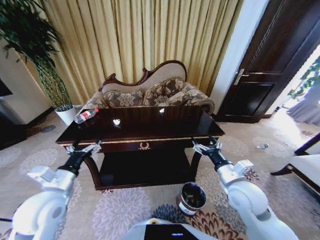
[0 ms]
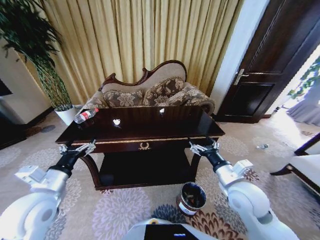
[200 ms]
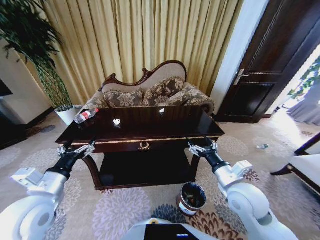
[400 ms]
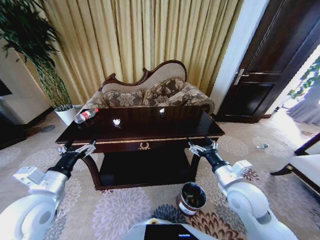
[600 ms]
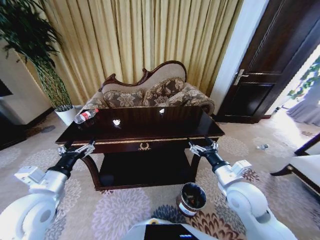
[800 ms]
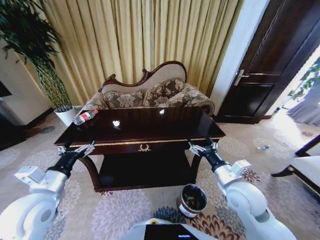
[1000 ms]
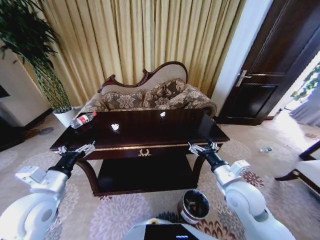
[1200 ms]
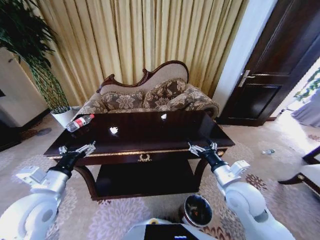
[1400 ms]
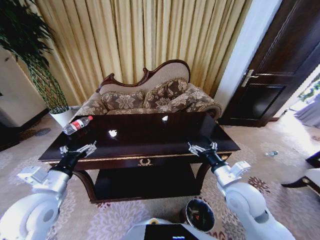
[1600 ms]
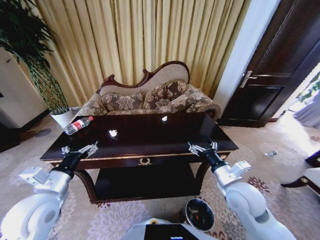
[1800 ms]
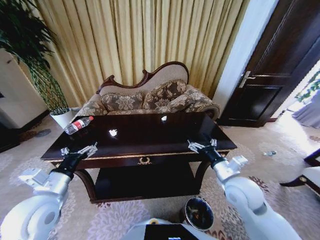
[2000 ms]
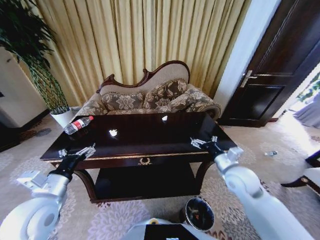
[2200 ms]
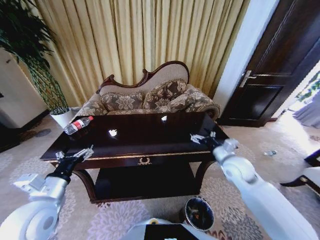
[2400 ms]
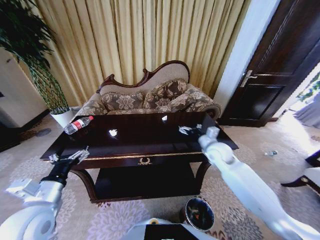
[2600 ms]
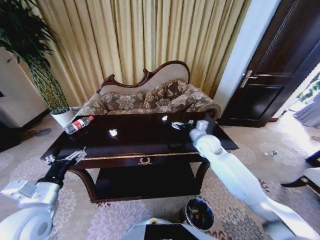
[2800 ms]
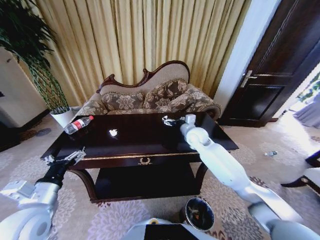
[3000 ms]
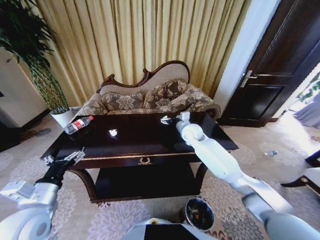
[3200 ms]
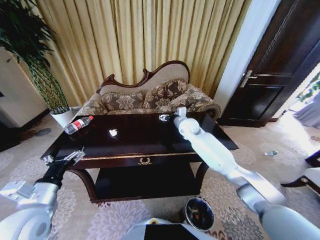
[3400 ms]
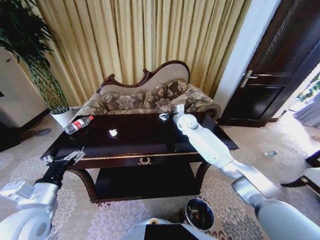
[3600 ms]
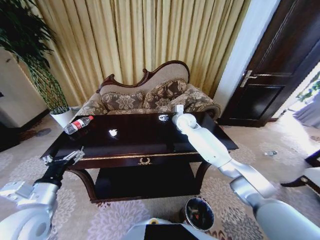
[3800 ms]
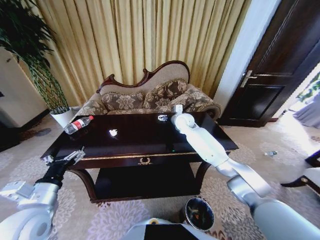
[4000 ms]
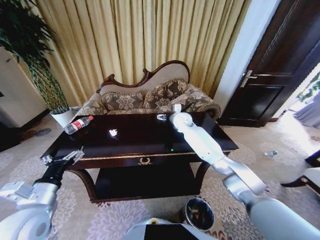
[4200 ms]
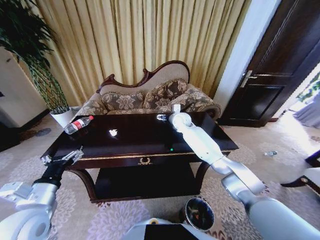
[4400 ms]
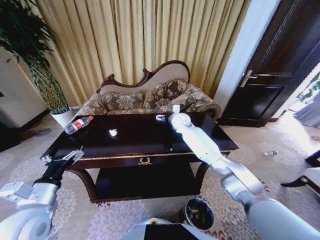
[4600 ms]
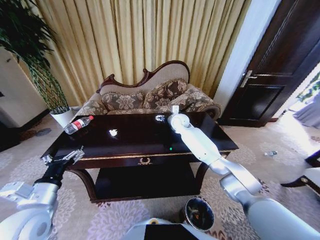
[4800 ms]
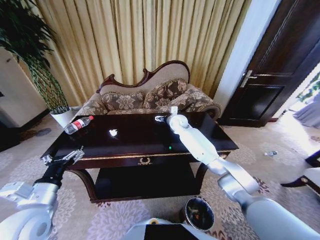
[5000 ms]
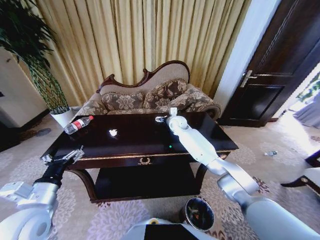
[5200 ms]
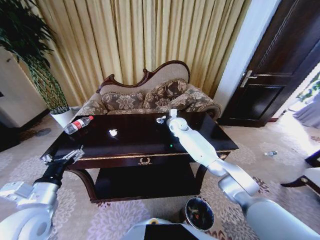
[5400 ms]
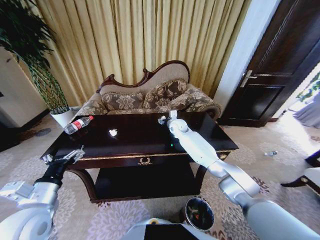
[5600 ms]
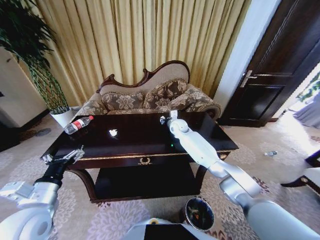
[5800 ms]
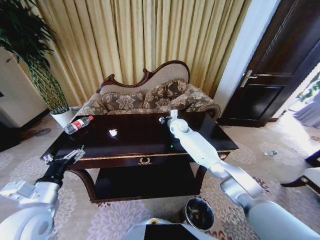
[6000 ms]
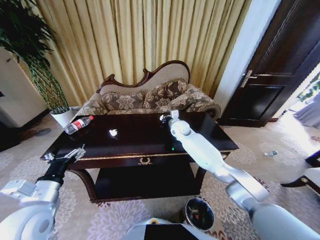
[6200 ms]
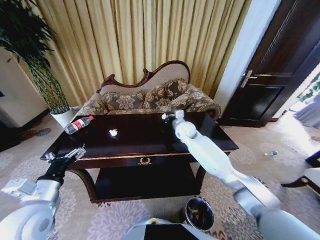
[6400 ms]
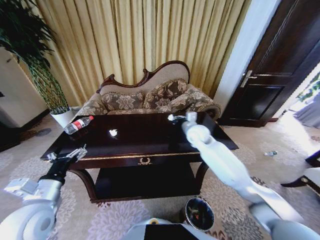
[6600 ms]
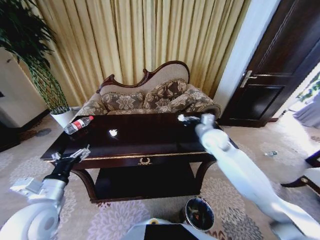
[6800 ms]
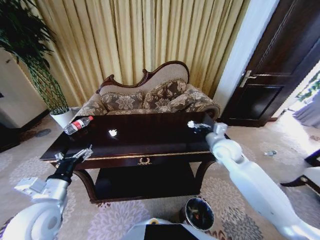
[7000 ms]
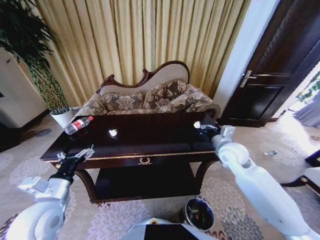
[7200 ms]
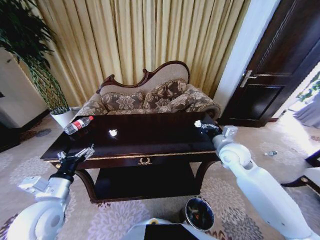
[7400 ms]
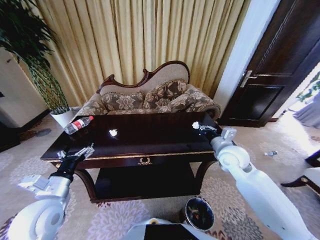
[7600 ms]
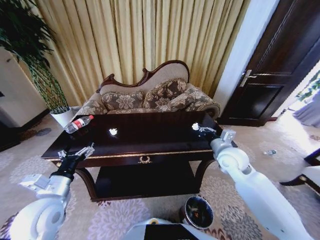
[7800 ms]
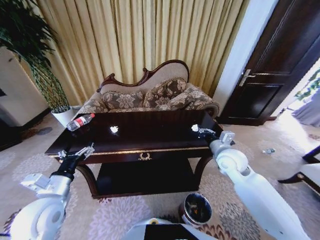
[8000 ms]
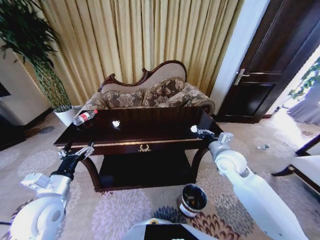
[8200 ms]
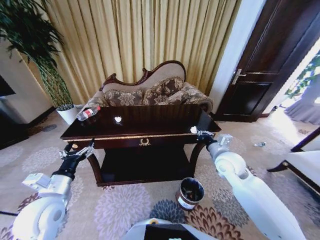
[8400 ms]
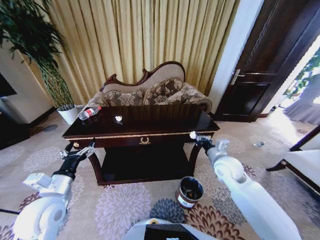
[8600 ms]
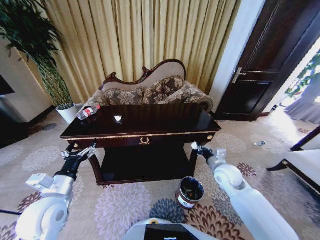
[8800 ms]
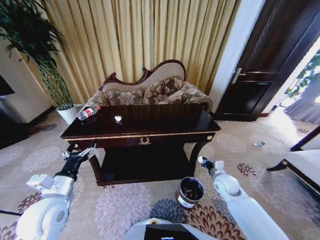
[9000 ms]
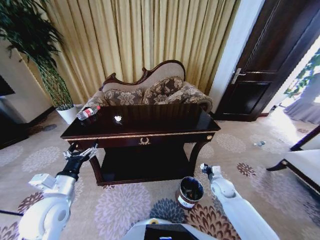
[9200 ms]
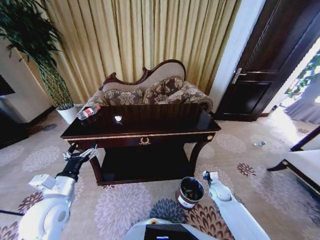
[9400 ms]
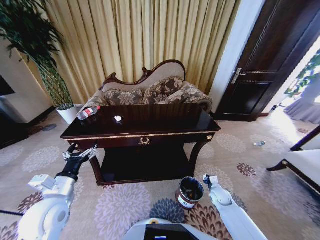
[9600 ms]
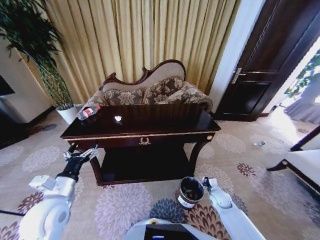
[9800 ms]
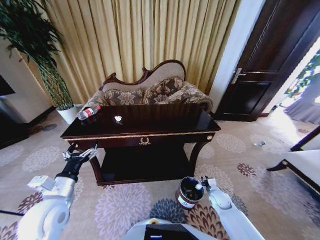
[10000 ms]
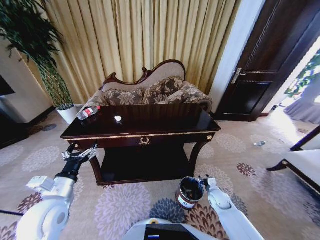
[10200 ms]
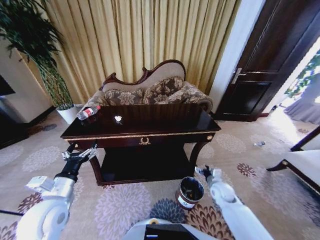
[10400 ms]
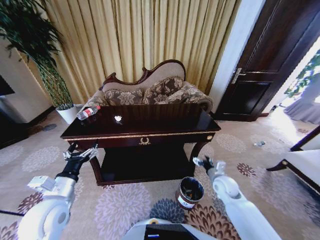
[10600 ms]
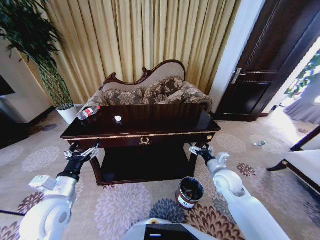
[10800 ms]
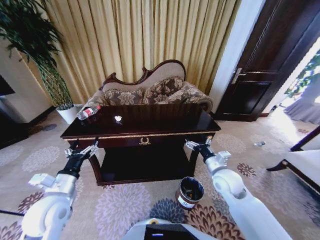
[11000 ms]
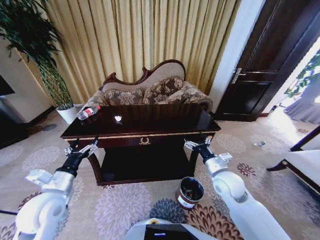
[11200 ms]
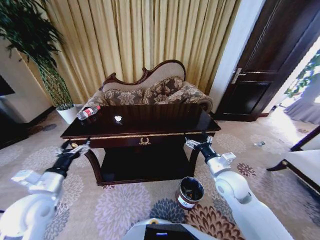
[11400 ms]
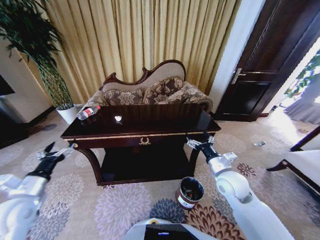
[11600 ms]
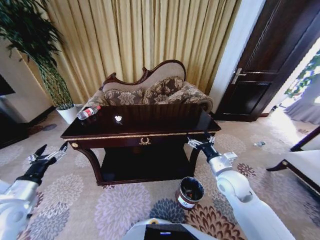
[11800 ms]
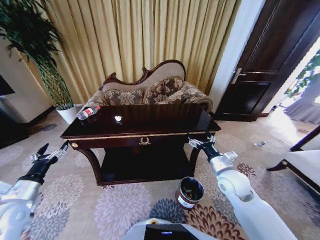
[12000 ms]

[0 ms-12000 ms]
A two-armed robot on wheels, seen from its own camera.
Task of the whole recording: Move to the front of the table and place the trash on the table into the trash bin.
1600 ms to 3000 ms: The right gripper moves forward, roughly 25 cm.
3000 ms to 4400 ms: The right gripper is displaced forward and to the left by about 10 cm.
4400 ms to 6000 ms: The right gripper closes.
6000 ms to 7600 ms: The right gripper goes some 25 cm backward and to the right.
7600 ms to 9000 ms: The right gripper travels downward by some 20 cm.
9000 ms to 10400 ms: The right gripper goes about 5 cm downward, and opens its fingers.
10400 ms to 12000 ms: The right gripper goes some 20 cm upward. The left gripper goes some 15 cm to the left.

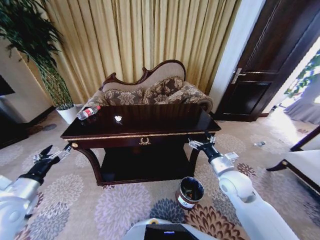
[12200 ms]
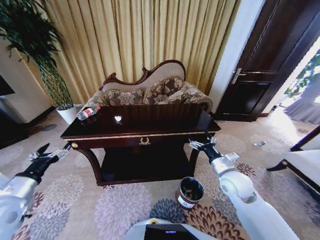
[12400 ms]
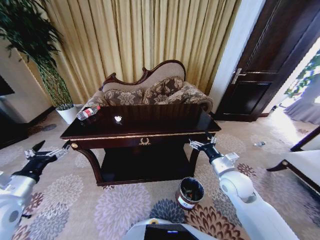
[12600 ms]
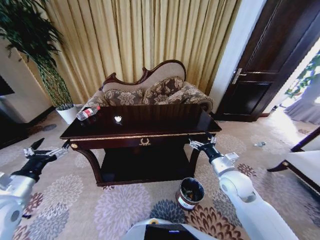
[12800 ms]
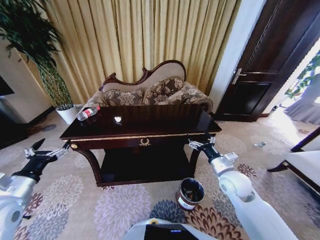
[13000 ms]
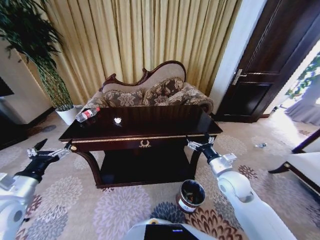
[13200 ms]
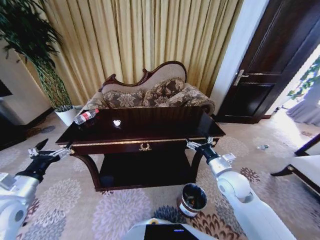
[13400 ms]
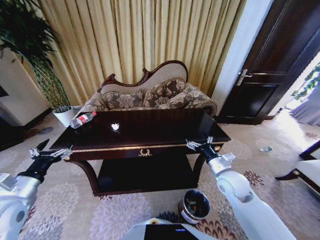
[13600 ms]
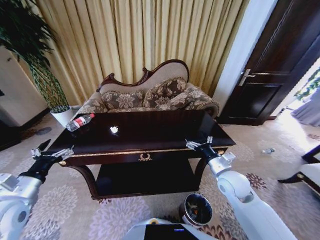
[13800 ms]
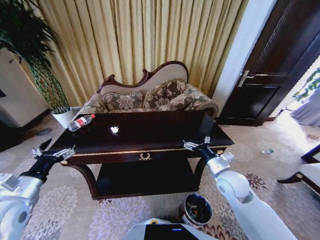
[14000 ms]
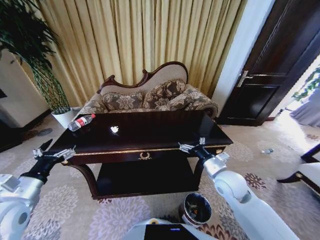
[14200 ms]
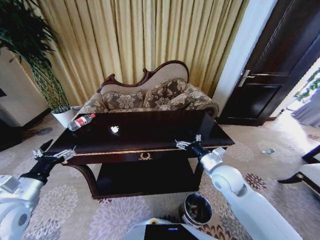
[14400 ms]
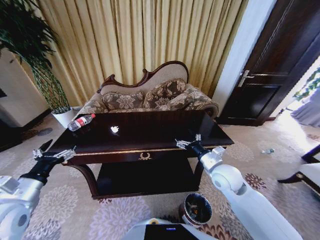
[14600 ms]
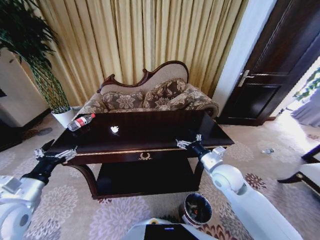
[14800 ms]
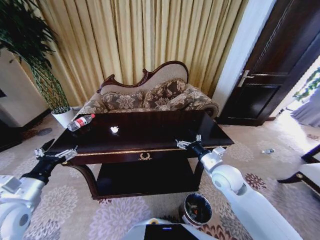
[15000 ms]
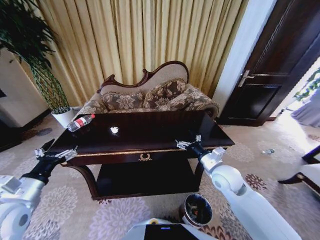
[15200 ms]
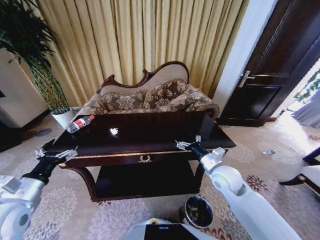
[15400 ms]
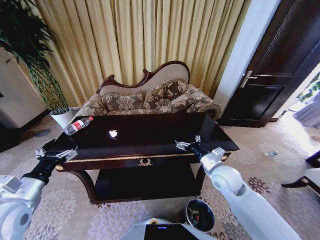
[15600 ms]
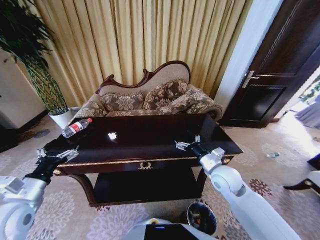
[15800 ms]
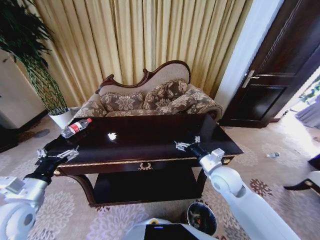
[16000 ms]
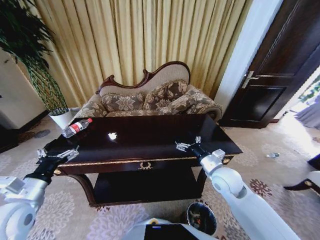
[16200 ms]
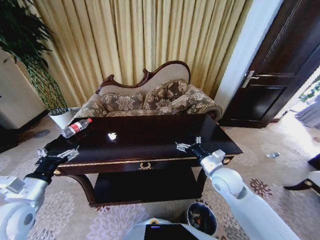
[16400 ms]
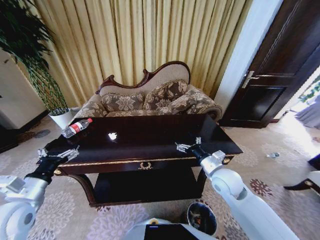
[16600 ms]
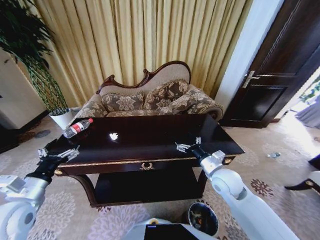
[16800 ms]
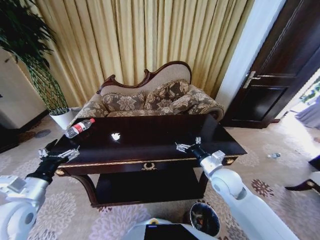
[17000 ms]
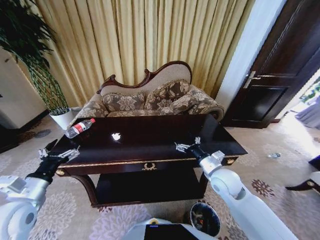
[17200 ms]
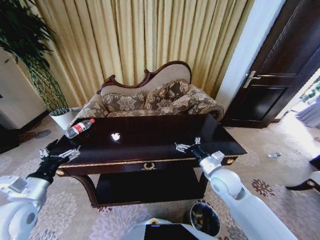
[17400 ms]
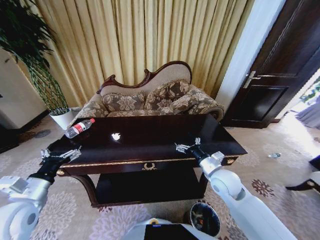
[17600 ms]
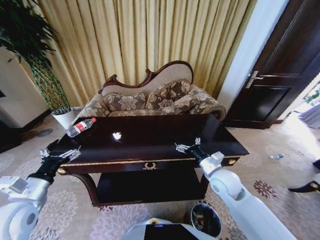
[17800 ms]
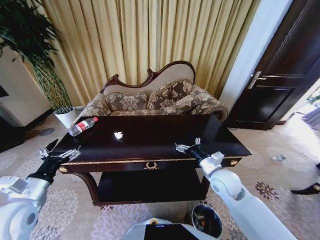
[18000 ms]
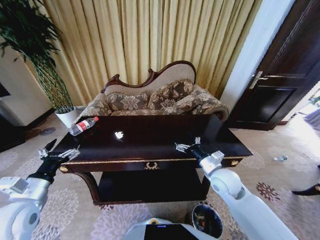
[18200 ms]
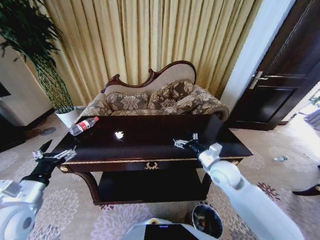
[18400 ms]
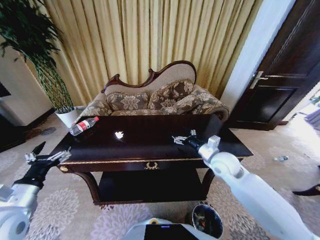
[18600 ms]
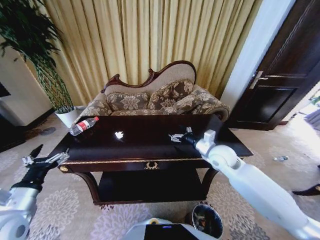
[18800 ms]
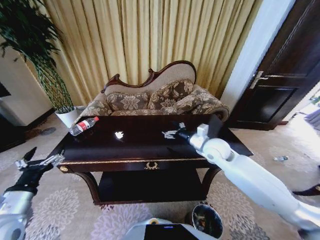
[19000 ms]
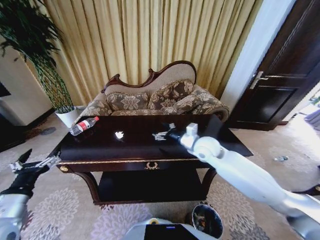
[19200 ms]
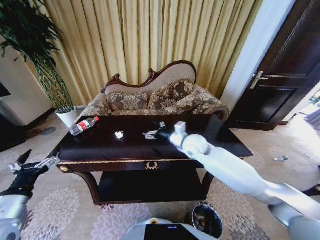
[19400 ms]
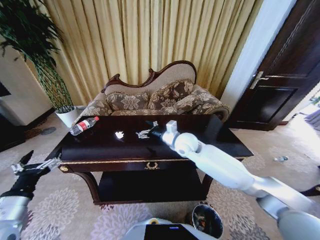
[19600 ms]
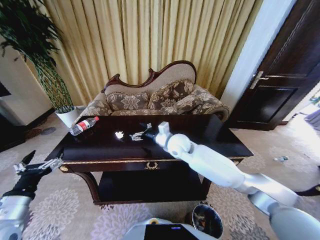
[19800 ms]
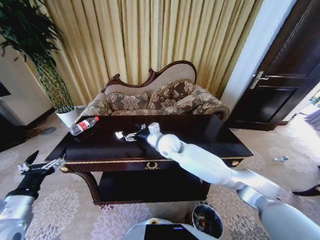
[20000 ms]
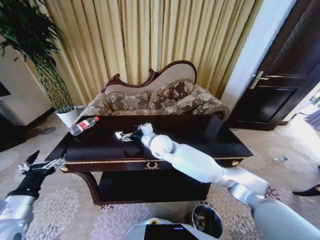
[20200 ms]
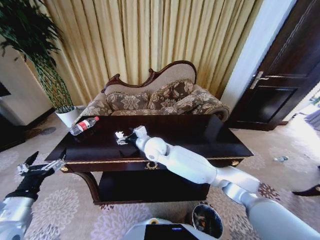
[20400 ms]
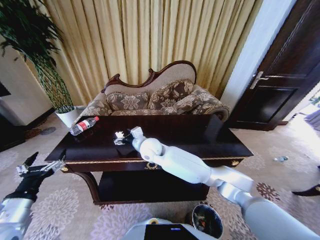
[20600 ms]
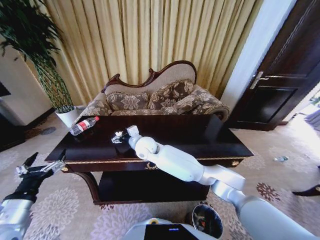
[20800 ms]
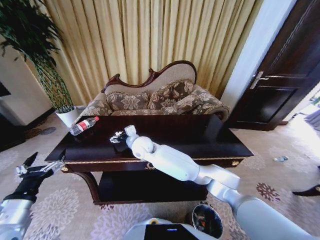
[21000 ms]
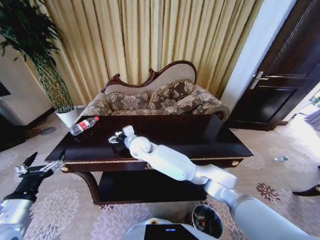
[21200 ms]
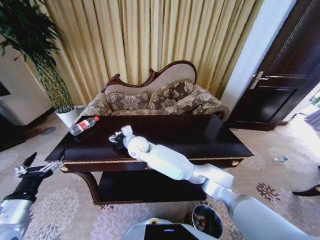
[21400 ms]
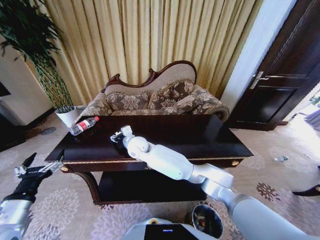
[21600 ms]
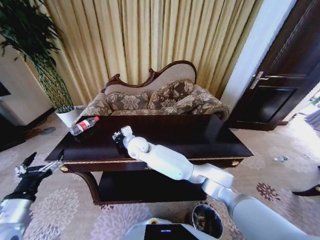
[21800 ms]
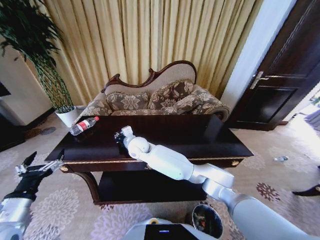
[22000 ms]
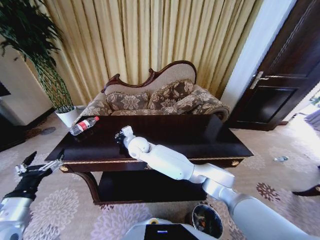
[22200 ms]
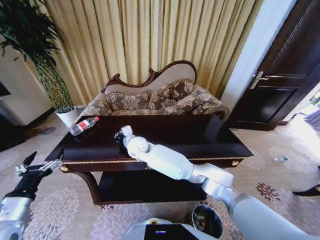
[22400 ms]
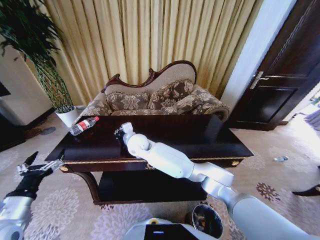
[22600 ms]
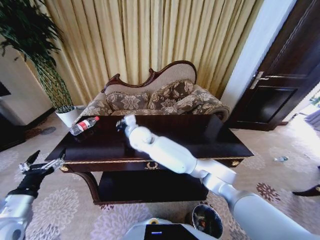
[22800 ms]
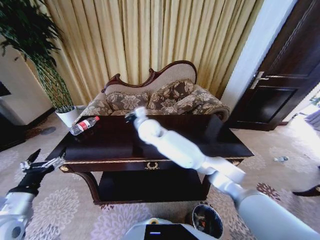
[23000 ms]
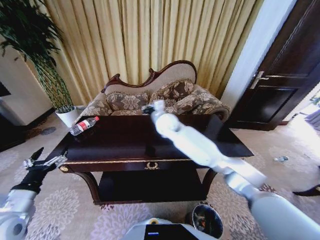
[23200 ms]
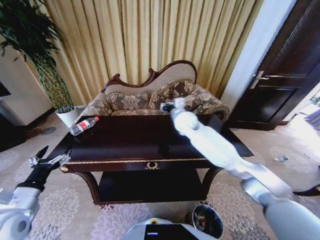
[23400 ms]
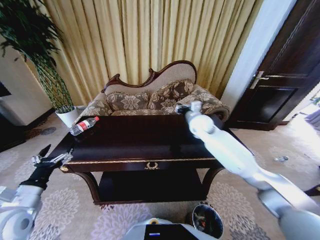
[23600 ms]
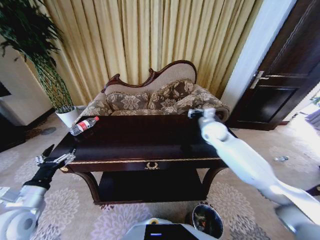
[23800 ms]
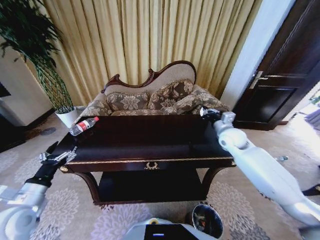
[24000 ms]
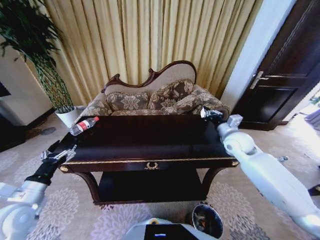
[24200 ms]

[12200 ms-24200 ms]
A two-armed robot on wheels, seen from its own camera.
Task of the whole recording: Move to the front of the table and place the trash on the table into the trash bin.
13800 ms to 15200 ms: The grippers move only a little.
18200 ms to 19800 ms: The right gripper goes some 20 cm to the left and forward.
19800 ms to 21200 ms: The right gripper is displaced to the left by roughly 15 cm.
21200 ms to 22600 ms: The right gripper closes its fingers.
22600 ms to 24200 ms: The right gripper heads to the right, covering approximately 40 cm.
